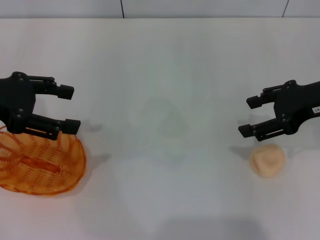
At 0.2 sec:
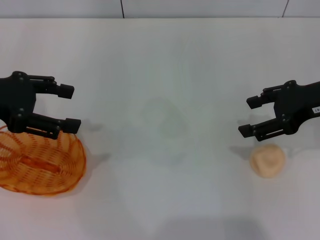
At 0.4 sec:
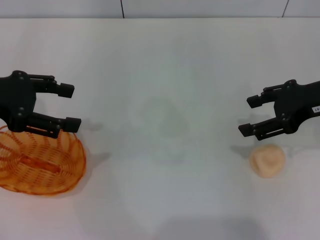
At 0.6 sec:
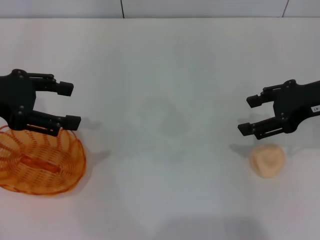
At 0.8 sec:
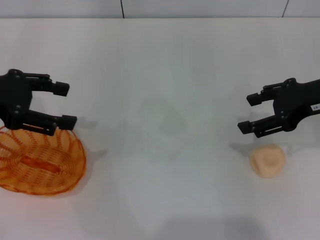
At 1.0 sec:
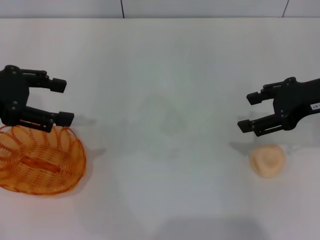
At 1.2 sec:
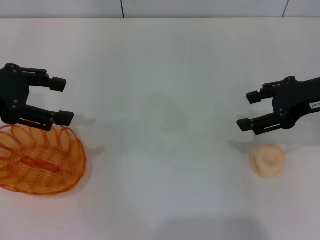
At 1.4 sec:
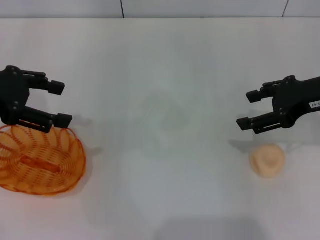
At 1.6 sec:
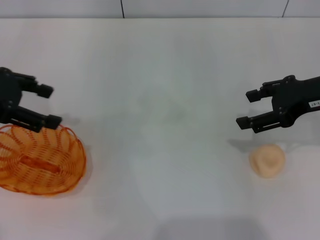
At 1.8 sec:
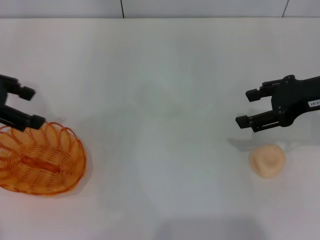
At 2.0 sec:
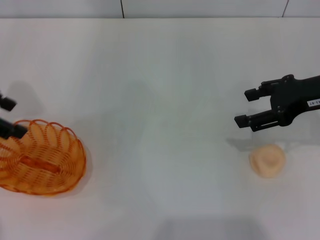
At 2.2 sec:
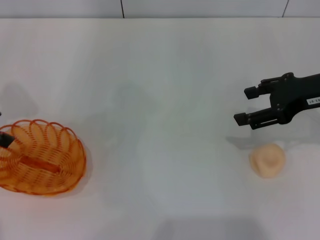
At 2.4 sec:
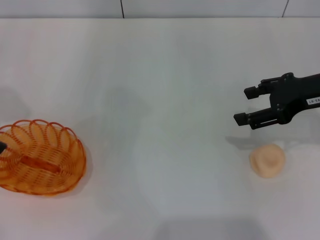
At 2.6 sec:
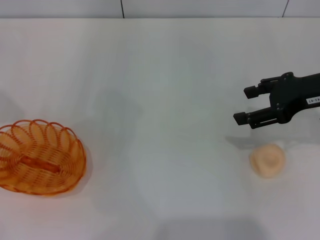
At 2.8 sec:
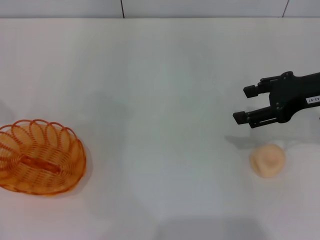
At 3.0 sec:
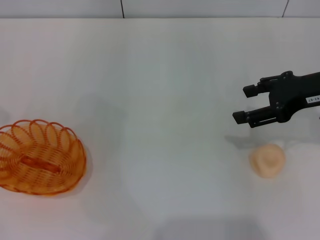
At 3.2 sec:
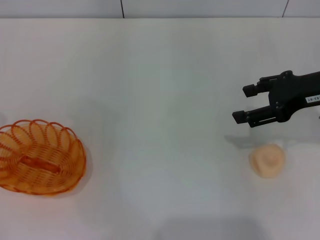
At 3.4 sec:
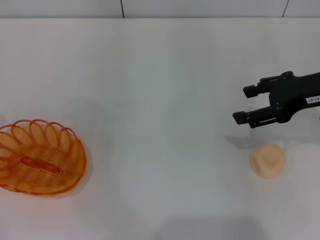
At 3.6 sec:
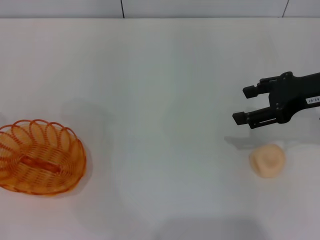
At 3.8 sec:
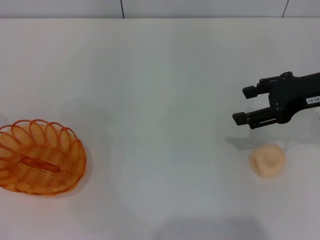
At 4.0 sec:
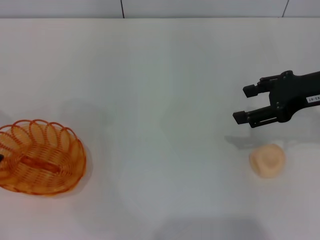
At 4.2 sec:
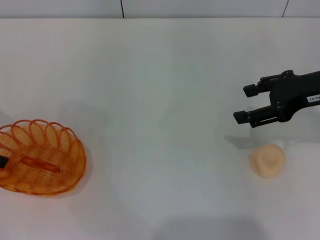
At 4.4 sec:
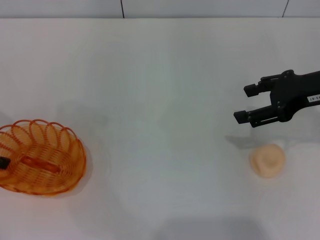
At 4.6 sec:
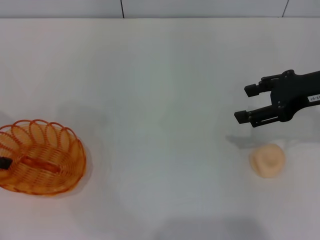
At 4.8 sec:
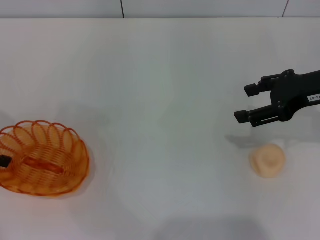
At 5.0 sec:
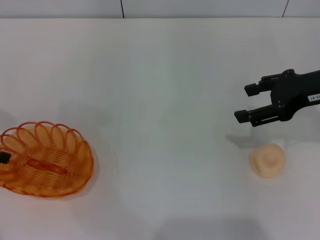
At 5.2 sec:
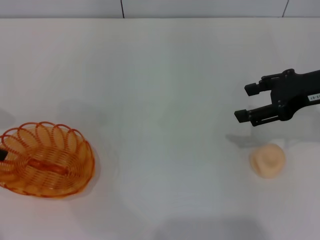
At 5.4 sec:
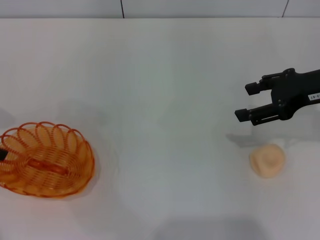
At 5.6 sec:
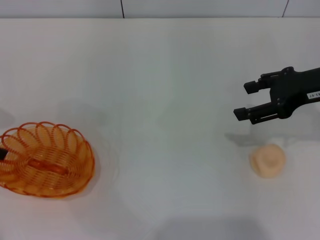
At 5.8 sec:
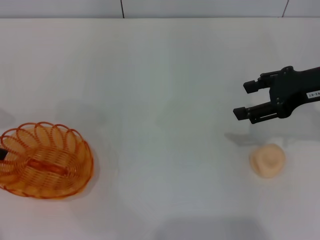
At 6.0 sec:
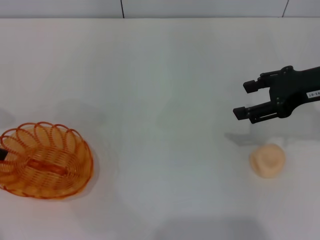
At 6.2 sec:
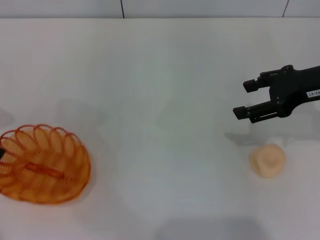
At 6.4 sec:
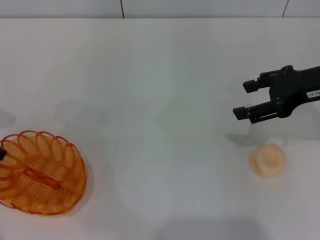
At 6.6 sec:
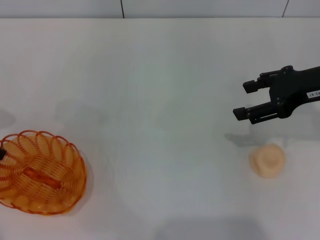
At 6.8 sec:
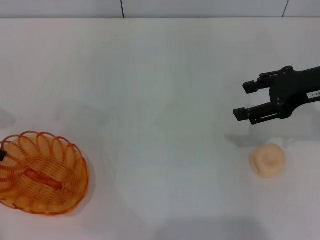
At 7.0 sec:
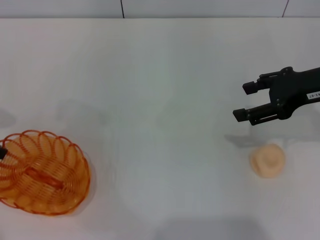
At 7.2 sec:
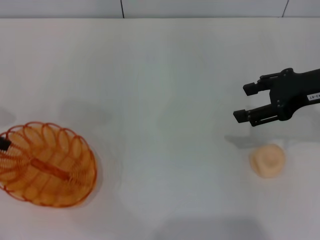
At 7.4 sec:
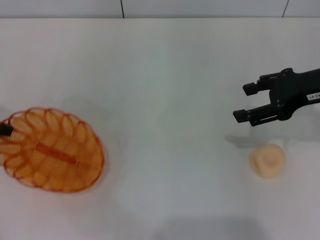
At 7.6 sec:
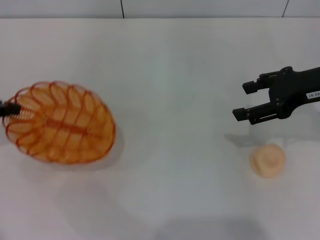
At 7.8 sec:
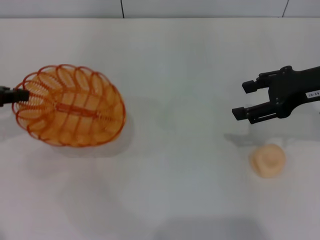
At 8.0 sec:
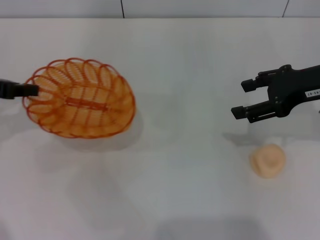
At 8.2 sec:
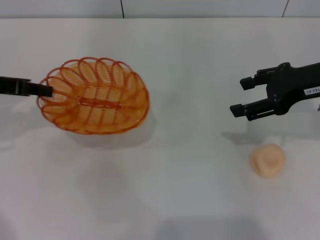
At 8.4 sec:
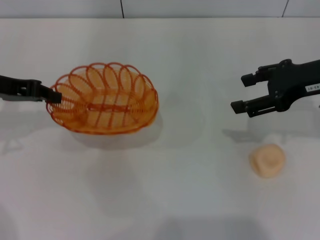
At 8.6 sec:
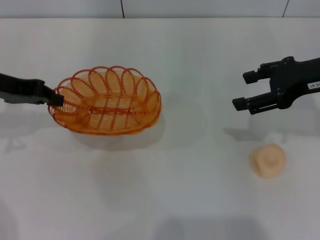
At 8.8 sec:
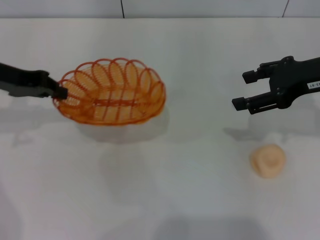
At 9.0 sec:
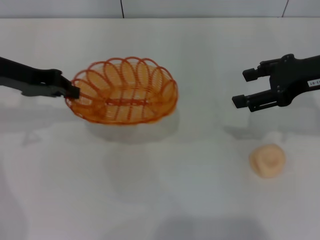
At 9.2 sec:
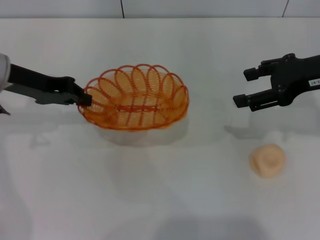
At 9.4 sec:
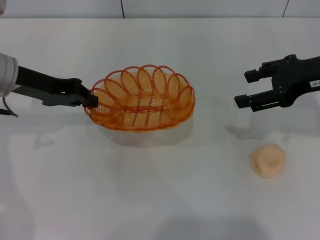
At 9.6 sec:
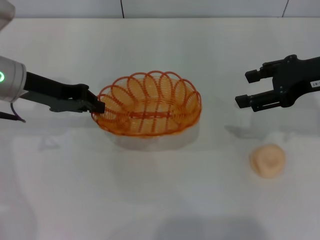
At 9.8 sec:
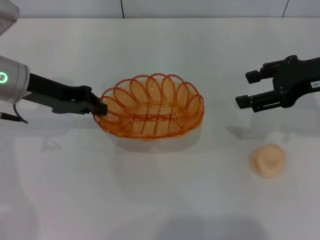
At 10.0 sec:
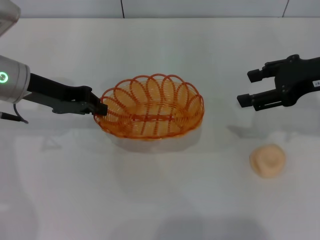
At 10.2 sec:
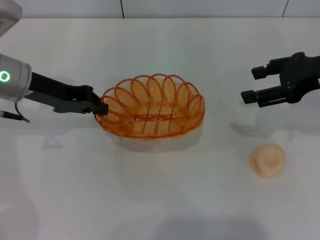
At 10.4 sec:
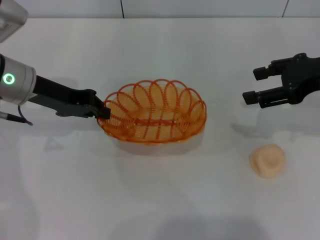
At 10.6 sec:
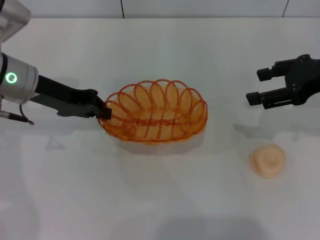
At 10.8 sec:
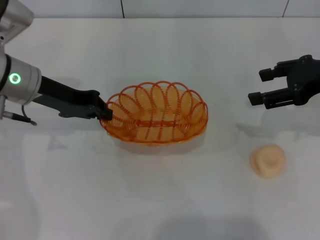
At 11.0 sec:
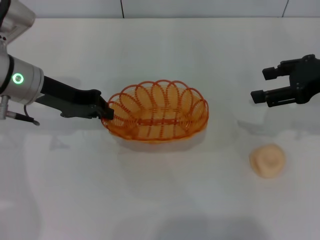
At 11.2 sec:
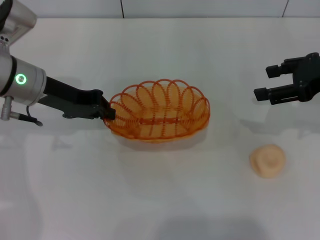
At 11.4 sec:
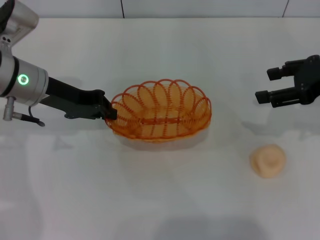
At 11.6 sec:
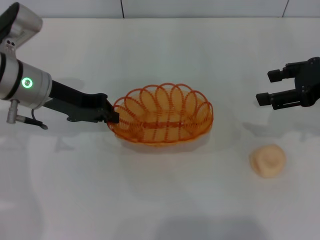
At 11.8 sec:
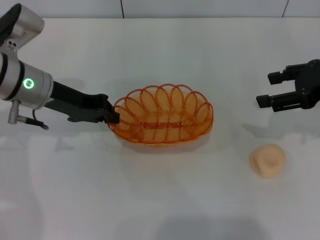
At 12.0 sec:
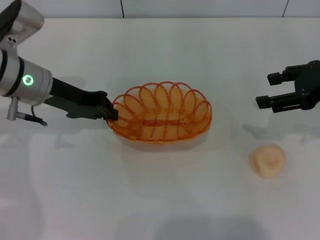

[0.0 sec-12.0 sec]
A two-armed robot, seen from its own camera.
Step, 0.0 sec to 9.0 sec: Pick up the basket with the left gripper.
0.0 sec to 1.6 sec: The grippers move only a little.
1.6 sec to 3.0 sec: The left gripper travels to the left by about 5 cm.
4.4 sec to 6.0 sec: The left gripper closes.
6.0 sec to 7.6 sec: The grippers stay close to where they were, moving slightly.
7.6 sec to 9.0 sec: The left gripper travels to the right and forward by some 10 cm.
9.0 sec to 10.4 sec: The left gripper shifts by some 5 cm.
10.4 sec to 12.0 sec: The grippers make only small movements.

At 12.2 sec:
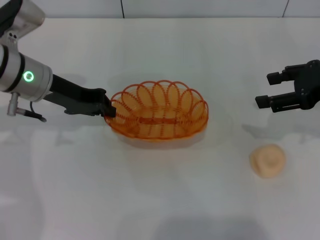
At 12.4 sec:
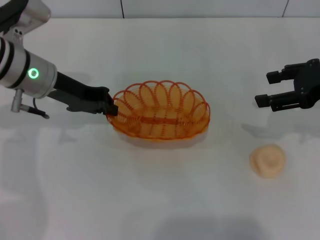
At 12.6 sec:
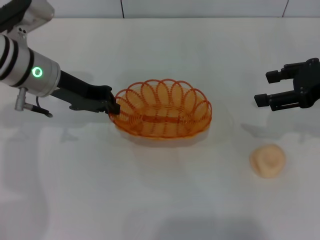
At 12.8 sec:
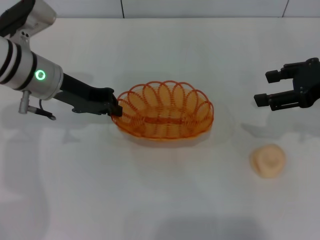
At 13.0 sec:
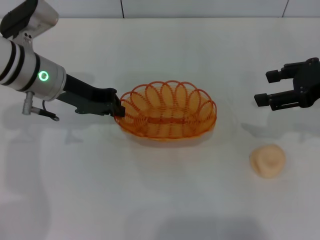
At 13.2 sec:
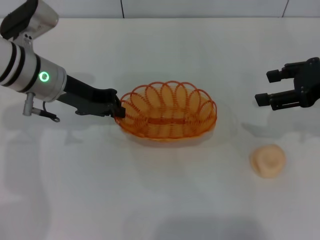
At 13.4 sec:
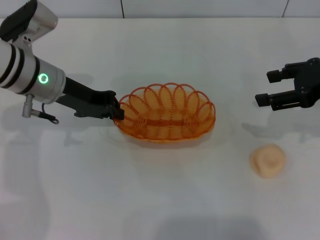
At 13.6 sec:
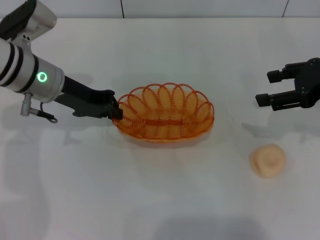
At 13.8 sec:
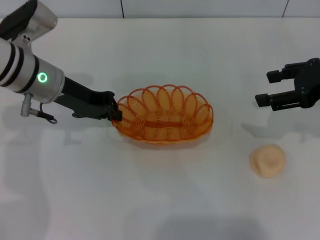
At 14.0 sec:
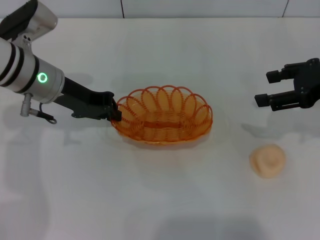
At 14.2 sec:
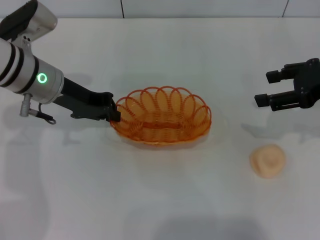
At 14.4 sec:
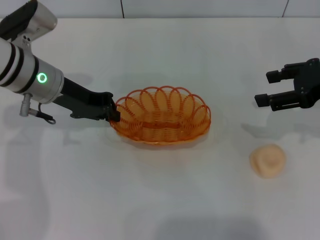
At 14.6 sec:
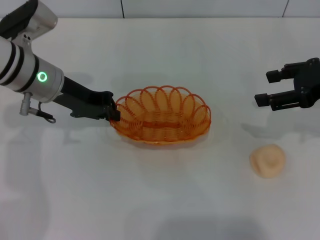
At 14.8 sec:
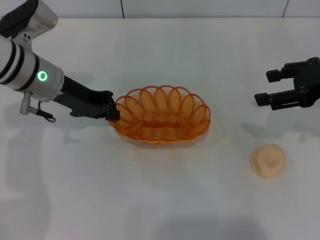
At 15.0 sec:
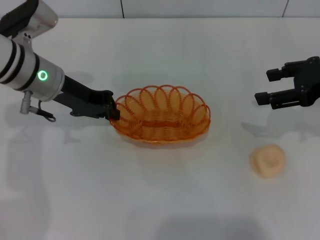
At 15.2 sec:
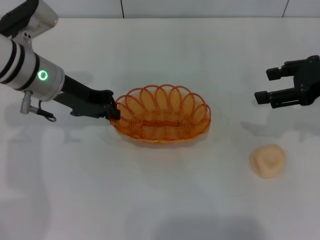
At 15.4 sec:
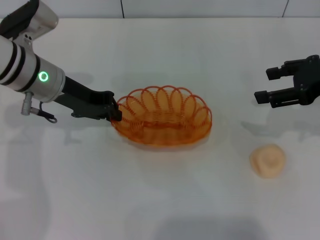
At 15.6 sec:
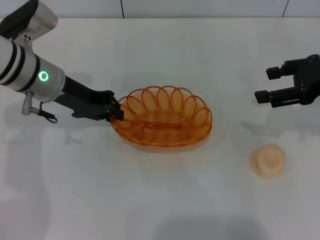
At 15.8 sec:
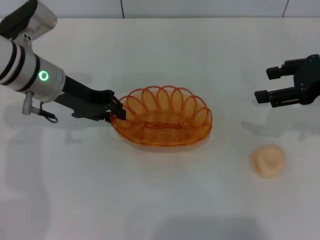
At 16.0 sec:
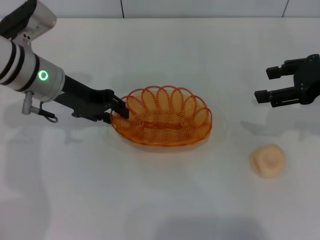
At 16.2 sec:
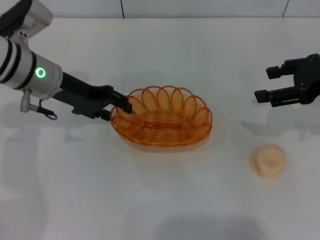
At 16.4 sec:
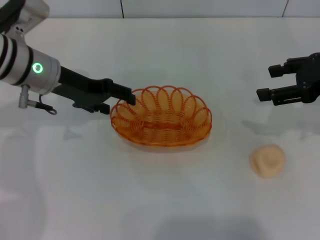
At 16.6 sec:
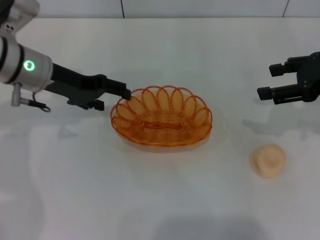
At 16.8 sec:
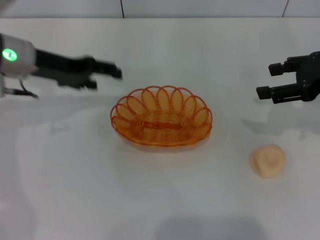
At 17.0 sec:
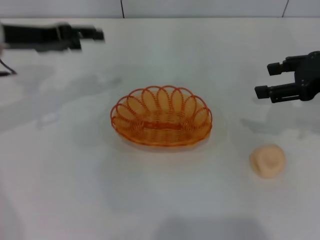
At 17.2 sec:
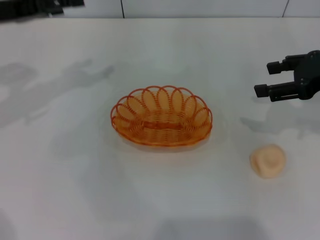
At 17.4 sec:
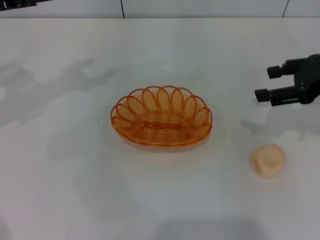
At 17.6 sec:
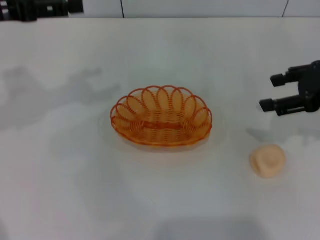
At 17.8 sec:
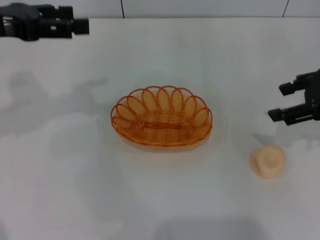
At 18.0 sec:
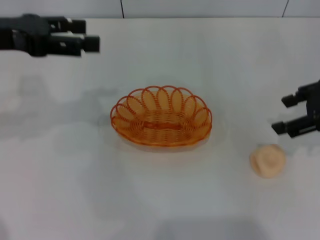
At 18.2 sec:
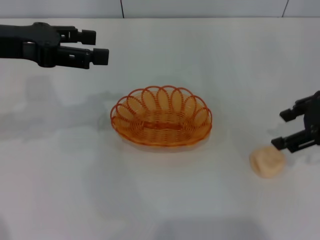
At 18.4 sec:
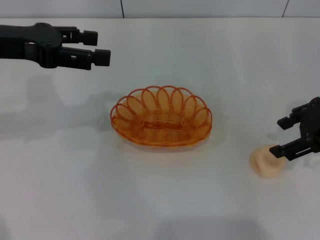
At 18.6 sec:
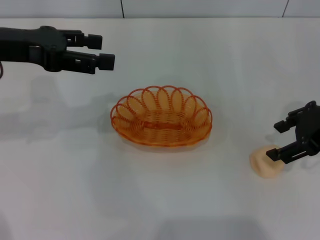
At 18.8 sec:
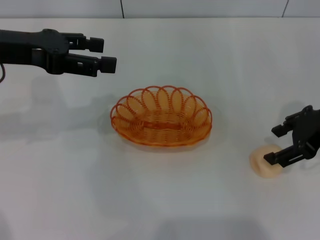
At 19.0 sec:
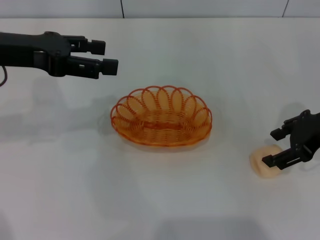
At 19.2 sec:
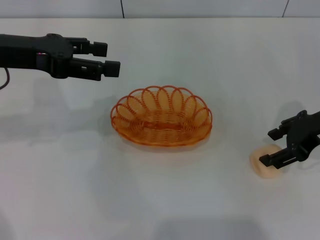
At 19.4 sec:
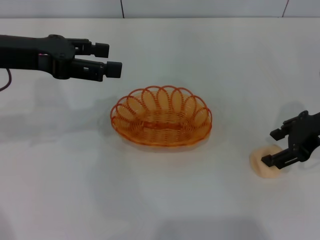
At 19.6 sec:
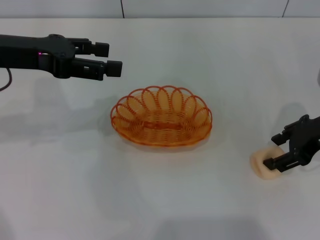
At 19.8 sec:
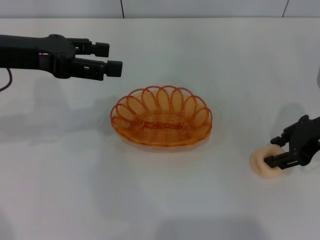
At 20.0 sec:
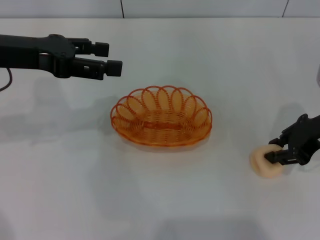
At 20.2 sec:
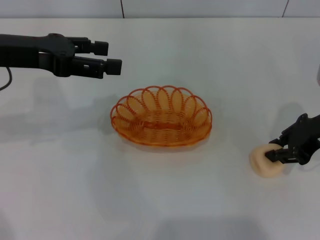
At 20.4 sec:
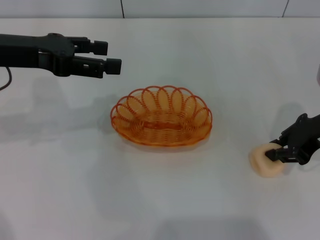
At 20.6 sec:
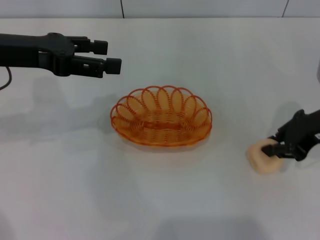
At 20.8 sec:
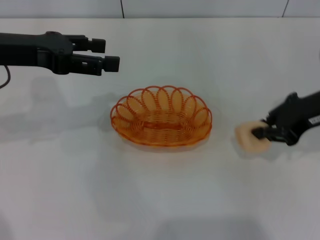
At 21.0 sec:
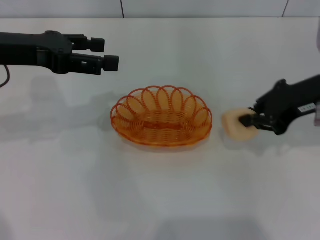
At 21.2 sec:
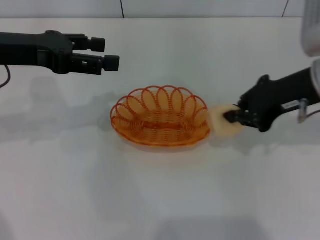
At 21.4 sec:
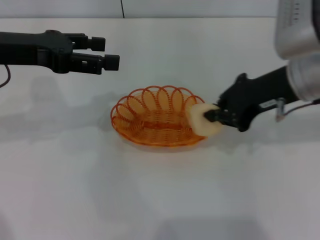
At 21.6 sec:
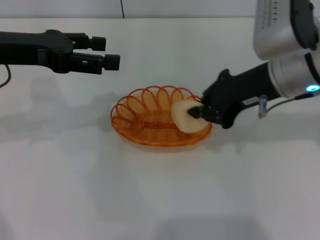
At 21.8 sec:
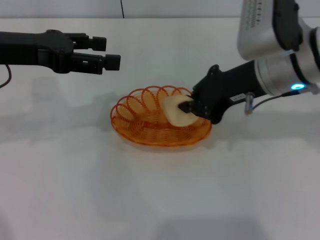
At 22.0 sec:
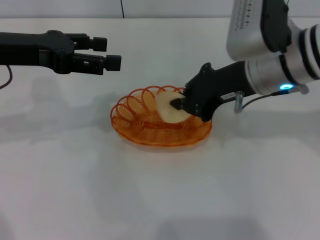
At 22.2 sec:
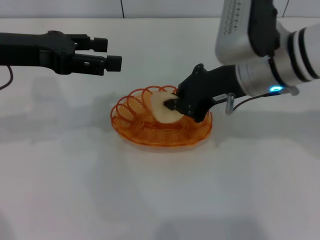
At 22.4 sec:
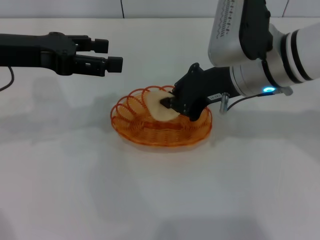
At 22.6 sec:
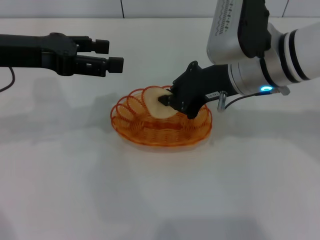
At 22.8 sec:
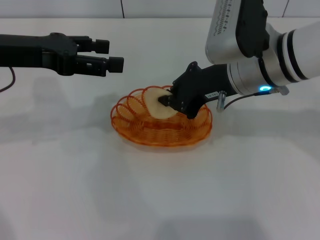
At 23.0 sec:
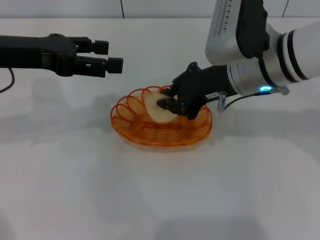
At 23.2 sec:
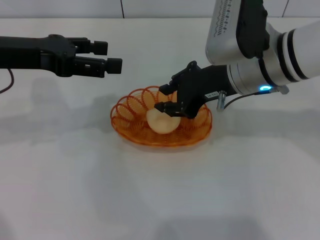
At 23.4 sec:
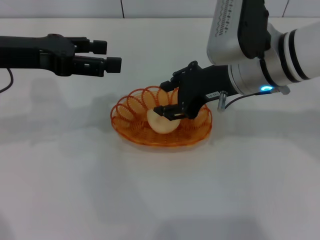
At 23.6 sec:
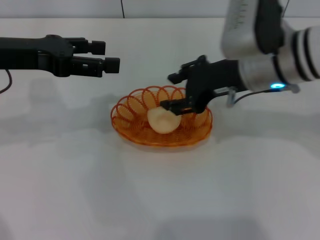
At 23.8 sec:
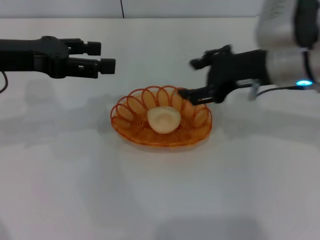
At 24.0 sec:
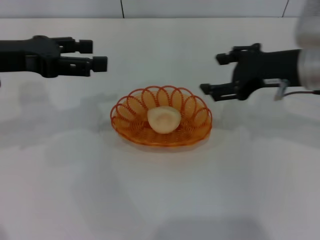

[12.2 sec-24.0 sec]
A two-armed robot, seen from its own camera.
Step, 12.2 sec to 16.8 sec: Place the basket in the center of view with the left gripper.
Step, 17.0 sec to 21.0 sec: Pick up the egg yolk pastry with the right gripper.
Step, 21.2 sec to 23.4 sec: Place the egg yolk pastry into the basket with the right gripper.
12.2 sec to 13.6 sec: The grippers stay close to where they were, moving slightly.
13.6 sec to 15.2 sec: Both grippers stay about where they are.
15.2 sec to 16.6 sec: The left gripper opens up.
16.6 sec to 18.2 sec: The left gripper travels upward and to the left by some 10 cm.
18.2 sec to 19.6 sec: The right gripper shifts approximately 5 cm downward.
19.6 sec to 21.0 sec: The right gripper shifts by about 5 cm, and closes.
21.0 sec to 22.6 sec: The right gripper moves to the left, some 10 cm.
22.6 sec to 24.0 sec: The right gripper moves to the right, roughly 10 cm, and opens.
